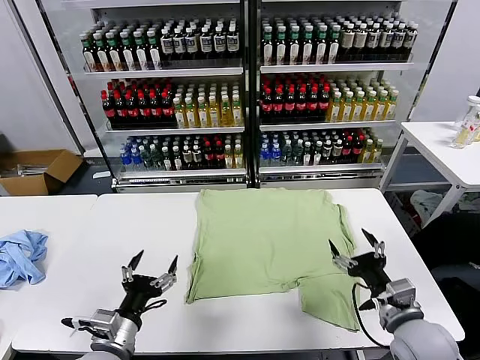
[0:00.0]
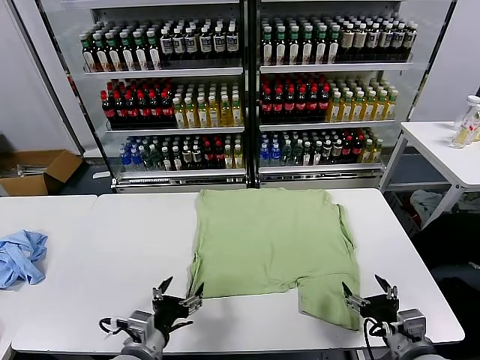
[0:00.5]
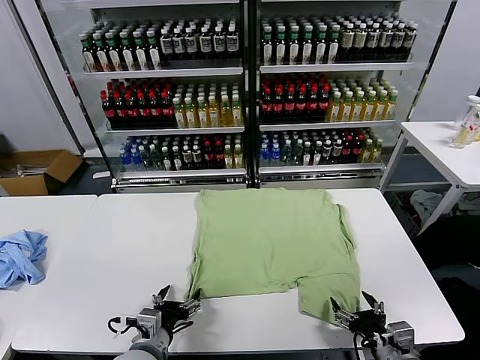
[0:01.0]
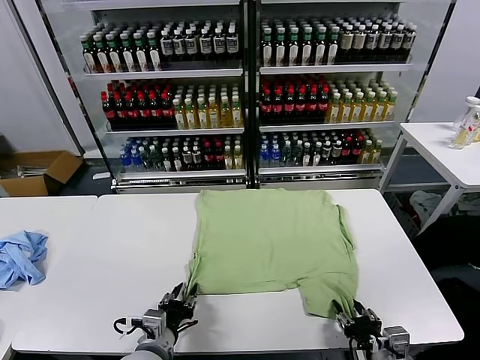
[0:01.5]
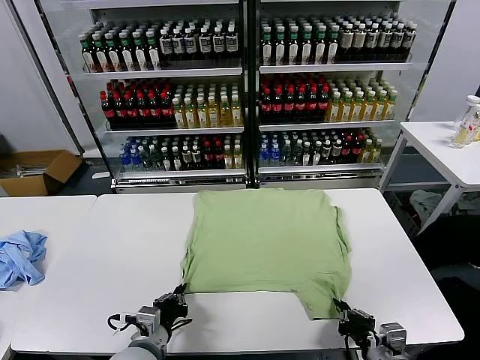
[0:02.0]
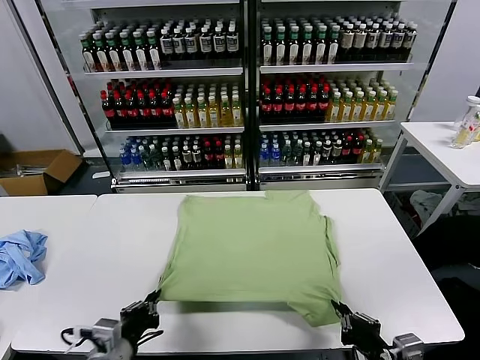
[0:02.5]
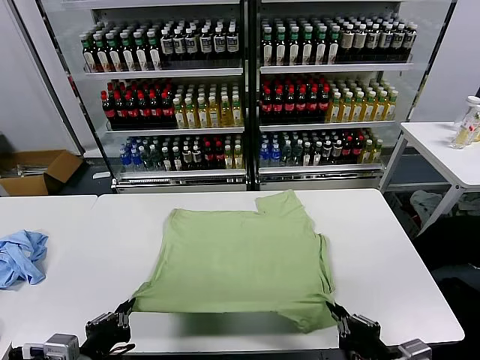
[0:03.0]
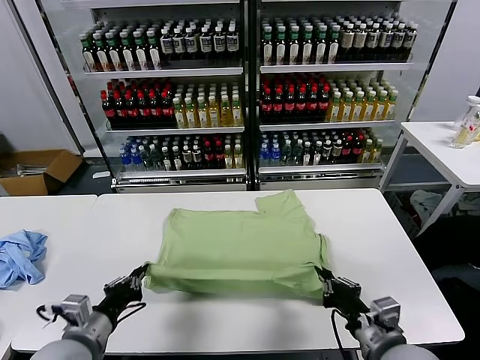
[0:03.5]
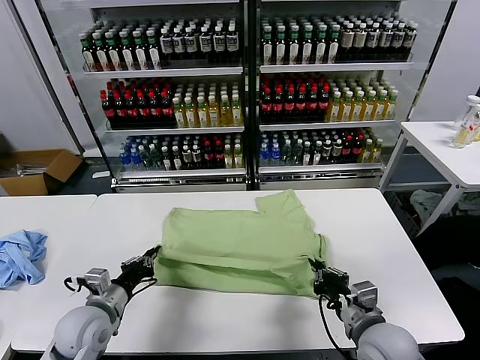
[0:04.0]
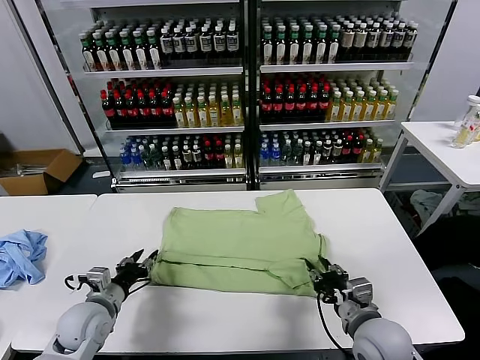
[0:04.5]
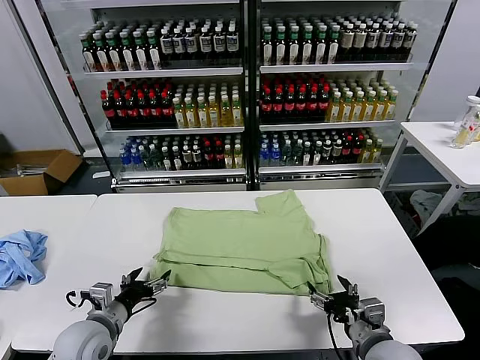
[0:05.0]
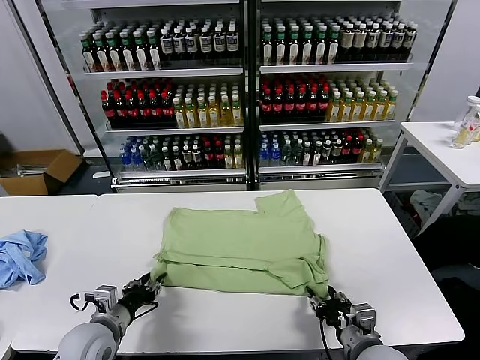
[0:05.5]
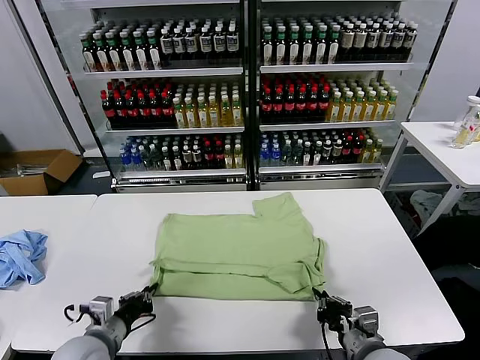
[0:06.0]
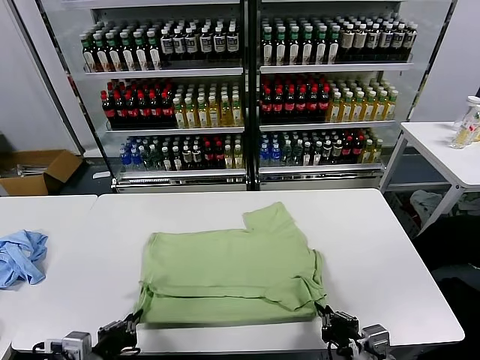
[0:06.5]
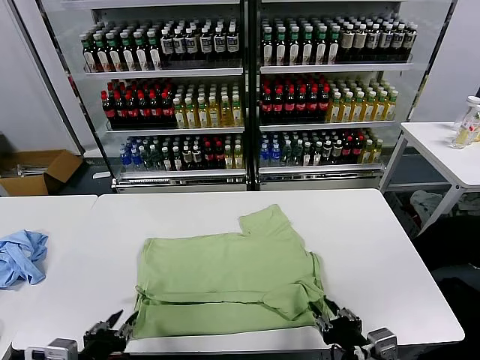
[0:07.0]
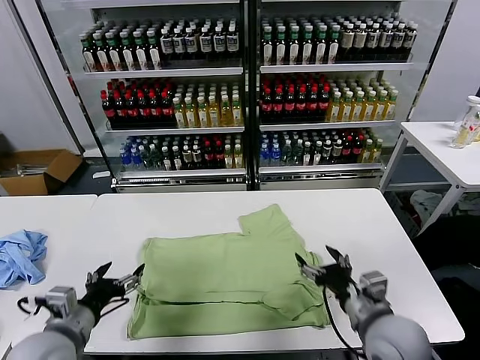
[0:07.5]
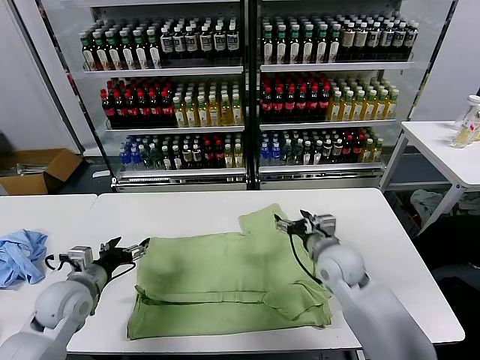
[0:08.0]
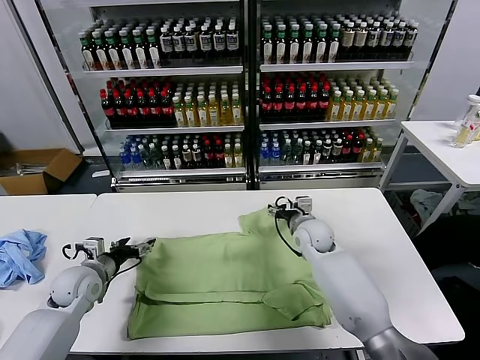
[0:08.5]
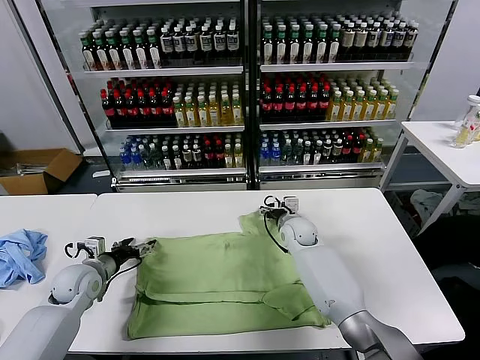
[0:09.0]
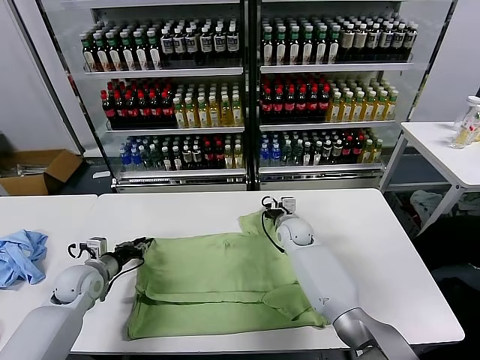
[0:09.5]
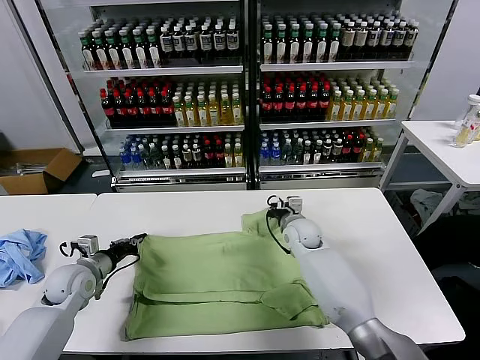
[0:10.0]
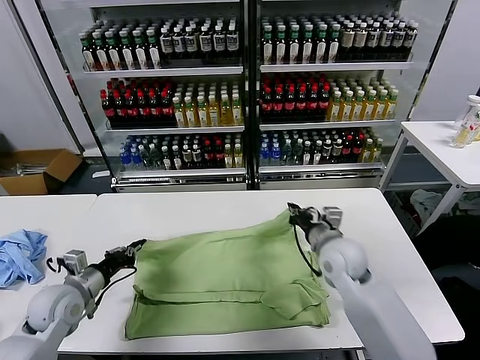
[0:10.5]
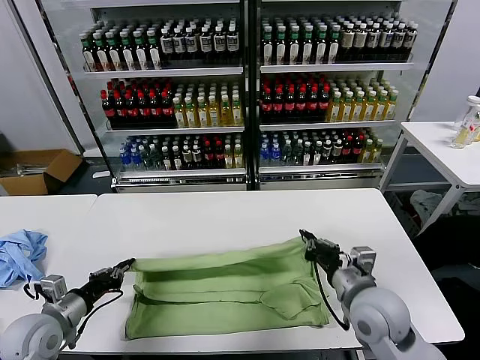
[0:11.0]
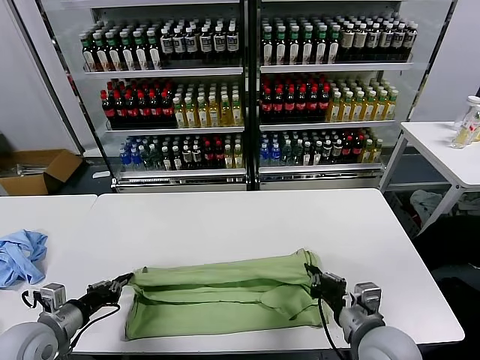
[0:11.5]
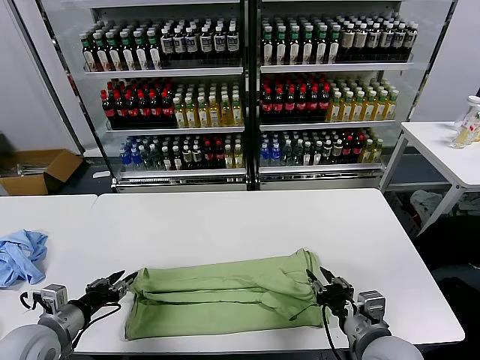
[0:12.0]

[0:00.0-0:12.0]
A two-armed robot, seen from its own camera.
Task of the whole recording: fold and organize the clothes.
Step, 0:00.0 to 0:02.0: use both grippers simultaneously to clamp the lower edge of the clothing fabric.
Step, 0:02.5 to 0:04.5: use both grippers to drag the lower edge of the fabric forward and fold it over the upper edge.
Step, 0:05.0 to 0:07.0: Drag the clothes downward with both gripper.
Step, 0:07.5 to 0:09.5: use both grippers simultaneously to clamp the upper edge of the clothing fabric.
Step, 0:10.0 to 0:12.0: use both grippers to drag the upper edge of the fabric backward and fold it over the lower edge.
0:02.0 to 0:04.0: The left gripper travels to the left and forward by approximately 10 cm; the right gripper heads forward, covering about 5 cm.
0:04.0 to 0:06.0: Both grippers move backward, about 5 cm. The right gripper opens, then closes once more; the left gripper opens, then closes once more.
0:06.0 to 0:08.0: The right gripper travels forward by approximately 25 cm, and opens. Meanwhile the left gripper shifts some 10 cm forward and to the left, and opens.
0:08.0 to 0:10.0: The grippers both shift forward by about 5 cm. The right gripper closes. Meanwhile the left gripper closes.
0:10.0 to 0:12.0: The left gripper shifts about 15 cm backward, and opens; the right gripper goes some 30 cm backward, and opens.

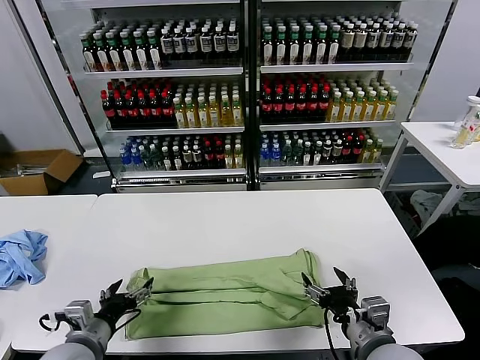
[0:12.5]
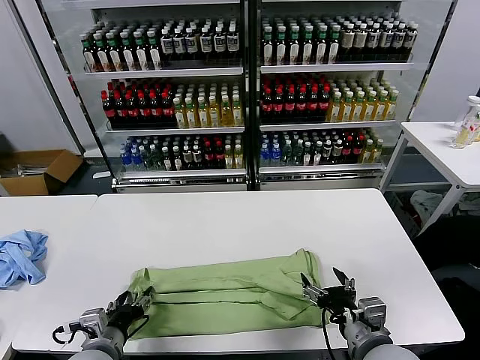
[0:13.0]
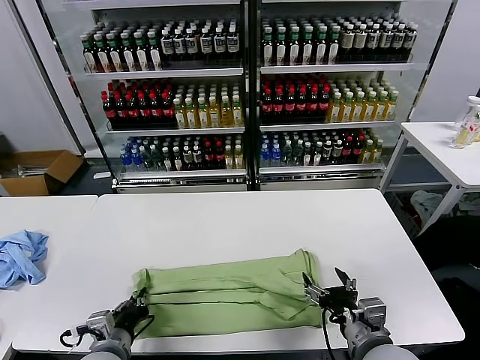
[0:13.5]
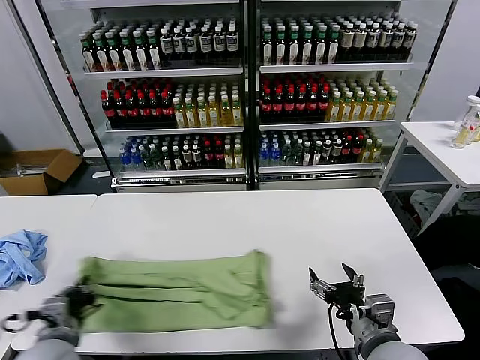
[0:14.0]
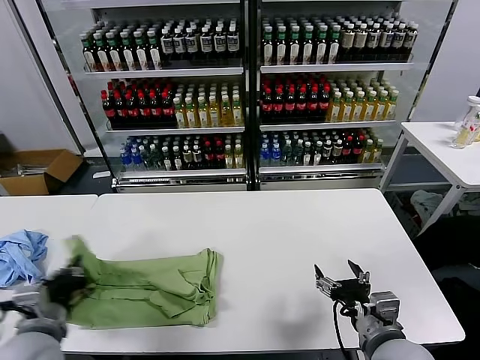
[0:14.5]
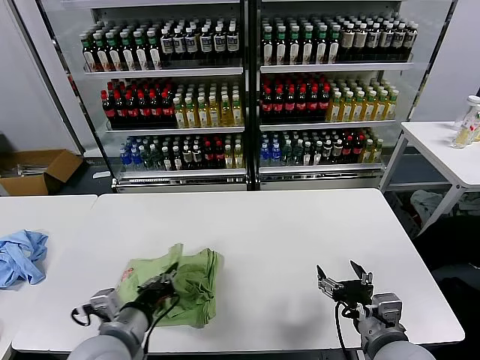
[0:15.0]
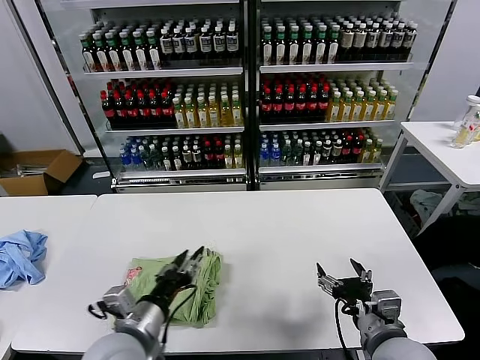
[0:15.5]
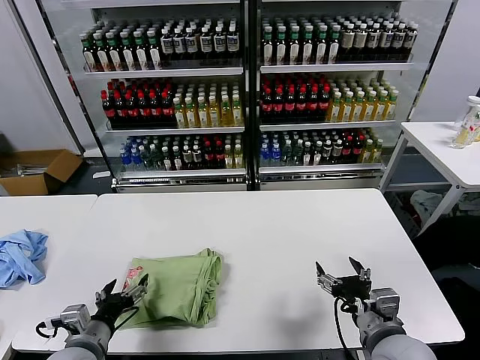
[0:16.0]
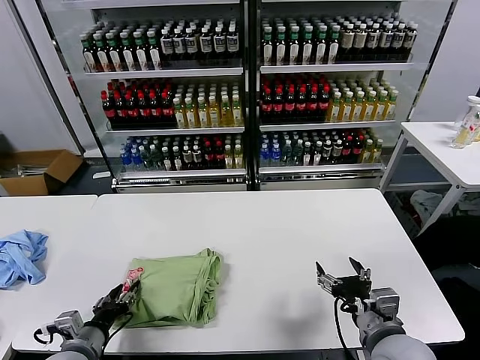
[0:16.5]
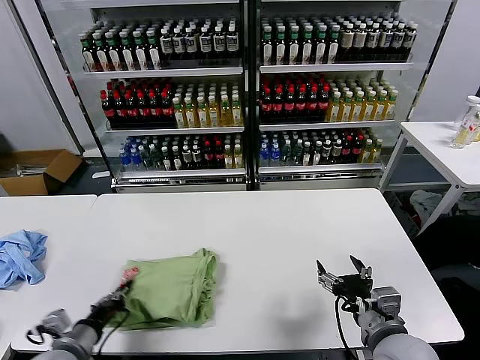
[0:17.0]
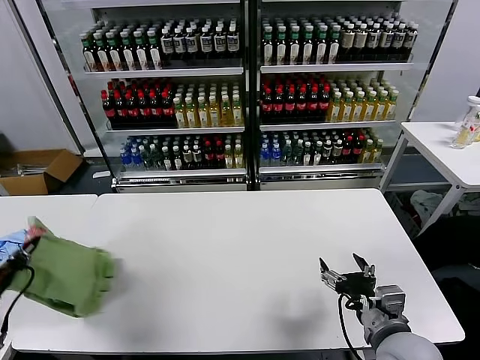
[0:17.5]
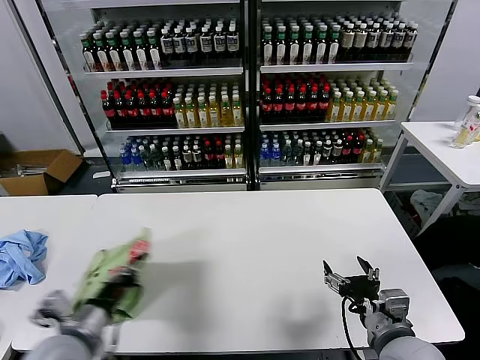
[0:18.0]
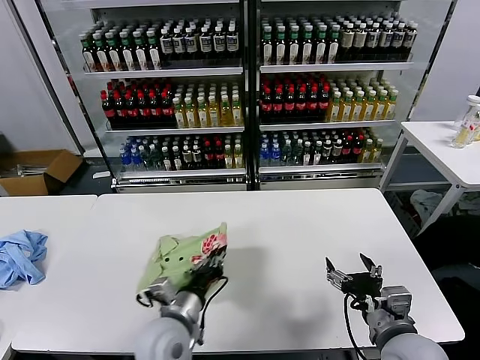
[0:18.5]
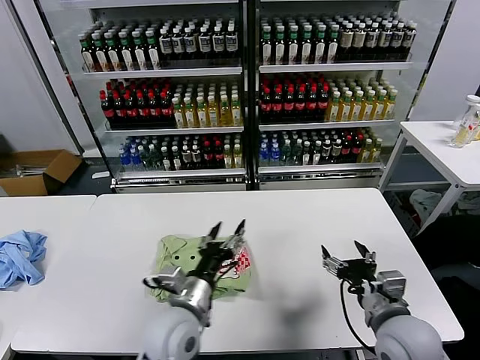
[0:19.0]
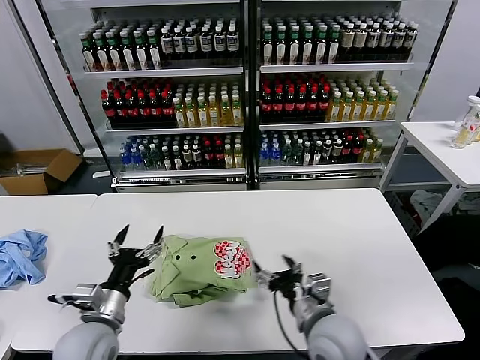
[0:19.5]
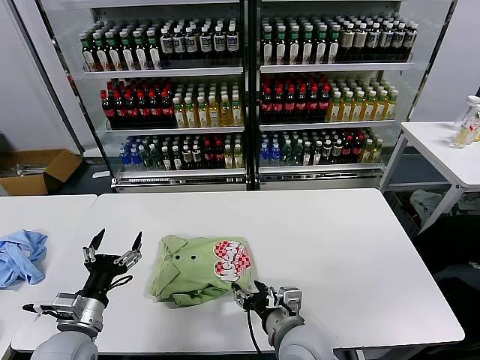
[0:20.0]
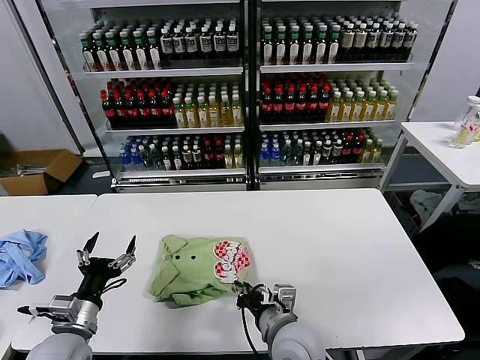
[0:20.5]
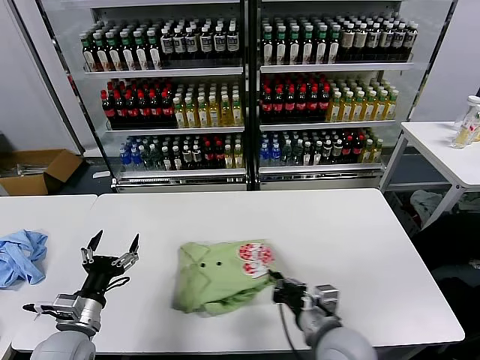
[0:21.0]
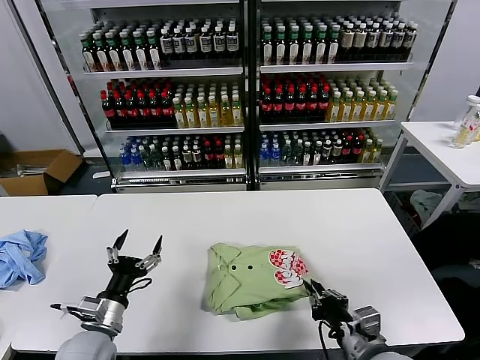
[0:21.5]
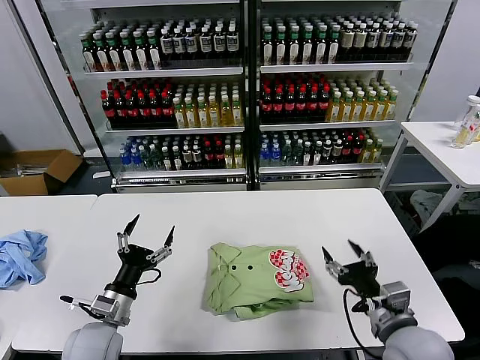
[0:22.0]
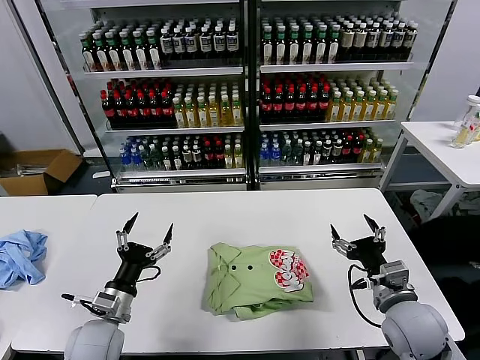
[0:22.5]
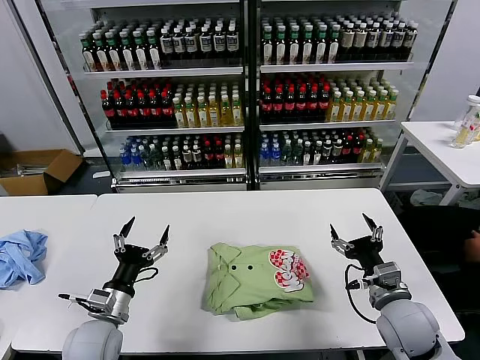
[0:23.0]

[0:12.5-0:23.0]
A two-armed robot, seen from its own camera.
Task of the whole recording: fold and organize the clothes.
Step, 0:12.5 to 0:13.5: use the left gripper to clamp the left edge of the fabric.
Step, 0:14.0 to 0:15.0: use the left gripper to drag the left edge of the fabric to the left and folds it over the right edge.
Step, 0:16.0 to 0:18.5: Flip the folded clothes over with left gripper.
Step, 0:19.0 to 0:21.5: Drag the clothes to the center of the table.
0:12.5 to 0:14.5: The left gripper shifts roughly 5 cm upward, and closes its fingers.
0:14.5 to 0:16.5: The left gripper shifts some 10 cm downward, travels to the right and back again, some 15 cm each way, and opens.
0:16.5 to 0:19.0: The left gripper heads to the right, covering some 25 cm, and closes, then reopens.
0:19.0 to 0:21.0: The left gripper shifts some 20 cm to the left. The right gripper heads to the left, covering some 10 cm, and closes.
0:21.0 to 0:23.0: The right gripper goes about 15 cm to the right, and opens its fingers; the left gripper changes place by approximately 5 cm.
